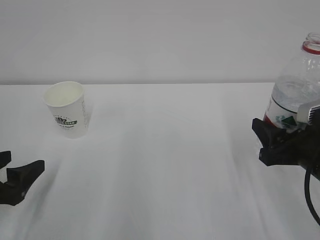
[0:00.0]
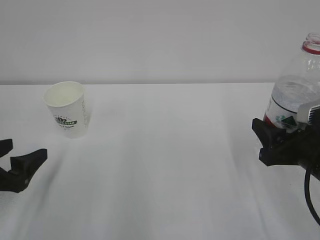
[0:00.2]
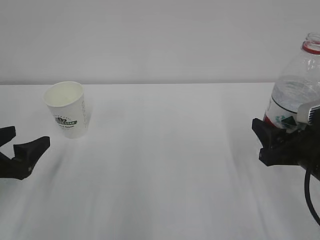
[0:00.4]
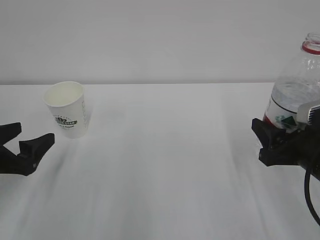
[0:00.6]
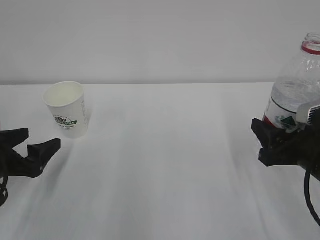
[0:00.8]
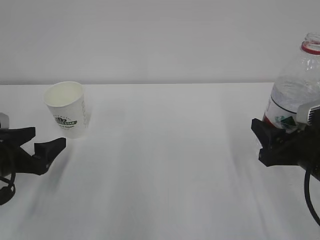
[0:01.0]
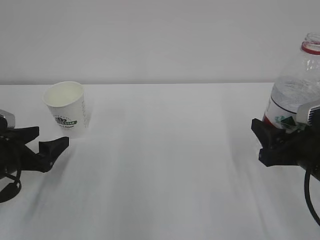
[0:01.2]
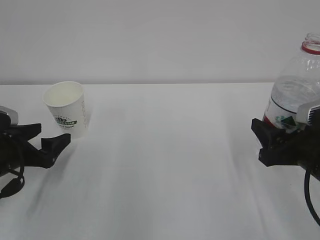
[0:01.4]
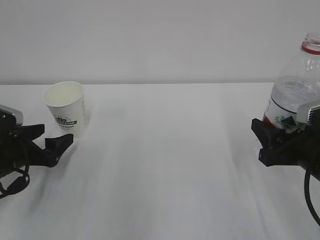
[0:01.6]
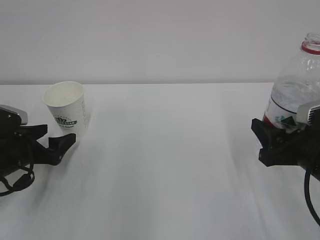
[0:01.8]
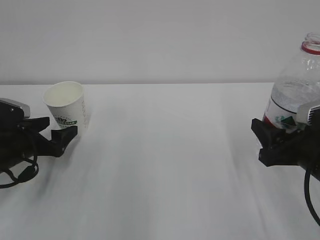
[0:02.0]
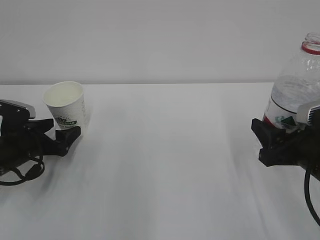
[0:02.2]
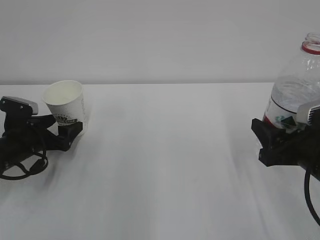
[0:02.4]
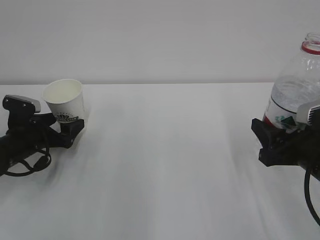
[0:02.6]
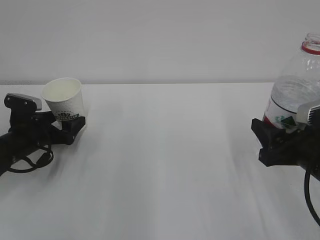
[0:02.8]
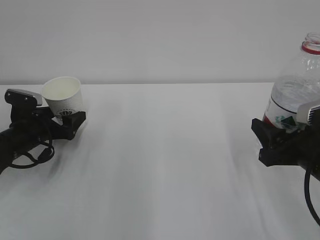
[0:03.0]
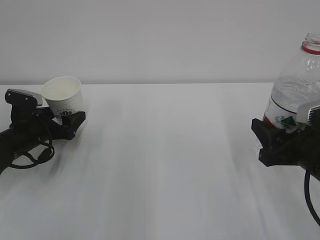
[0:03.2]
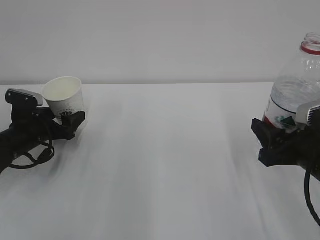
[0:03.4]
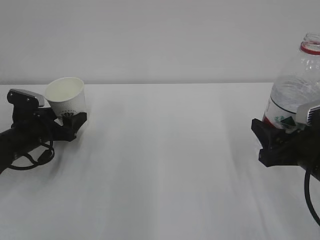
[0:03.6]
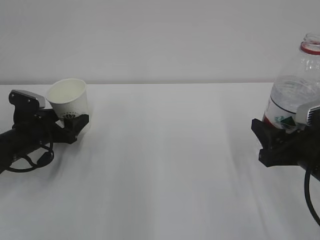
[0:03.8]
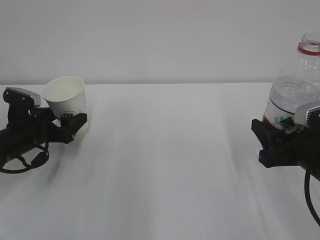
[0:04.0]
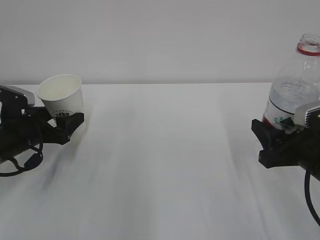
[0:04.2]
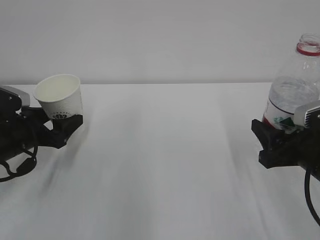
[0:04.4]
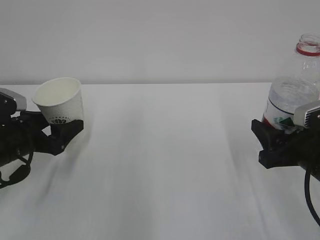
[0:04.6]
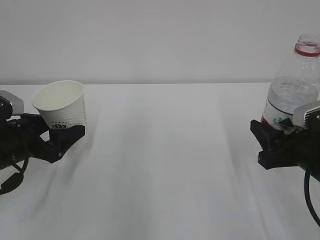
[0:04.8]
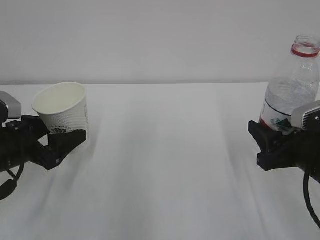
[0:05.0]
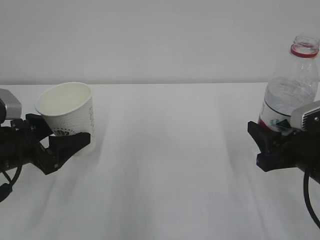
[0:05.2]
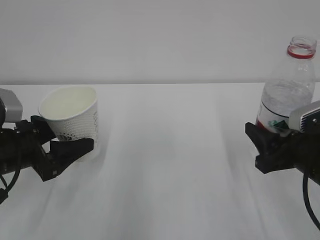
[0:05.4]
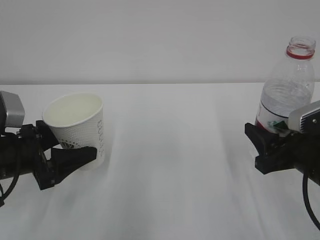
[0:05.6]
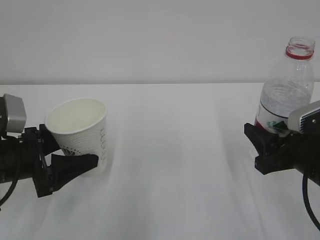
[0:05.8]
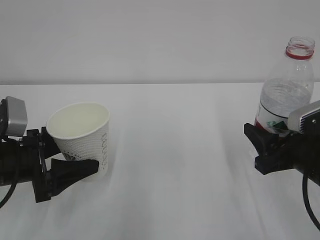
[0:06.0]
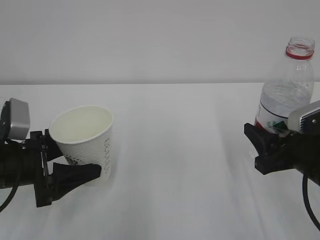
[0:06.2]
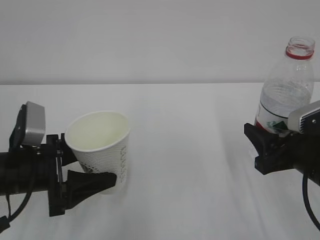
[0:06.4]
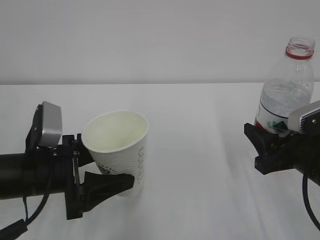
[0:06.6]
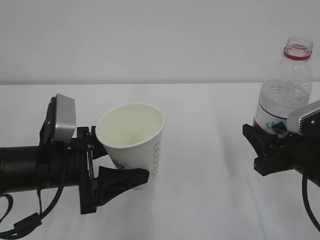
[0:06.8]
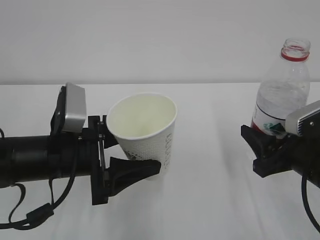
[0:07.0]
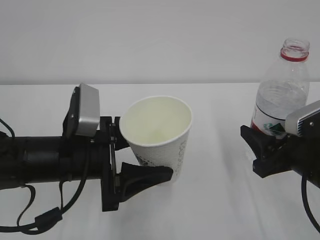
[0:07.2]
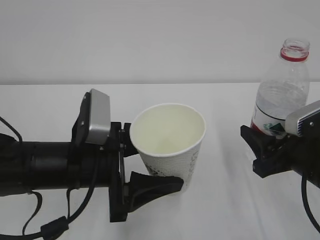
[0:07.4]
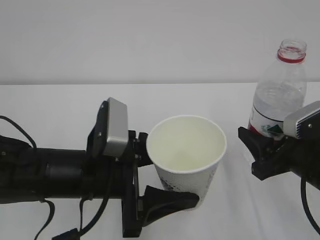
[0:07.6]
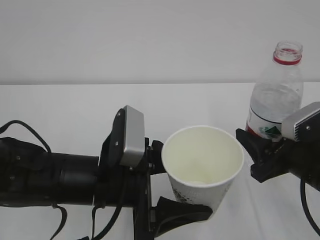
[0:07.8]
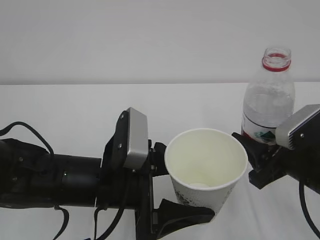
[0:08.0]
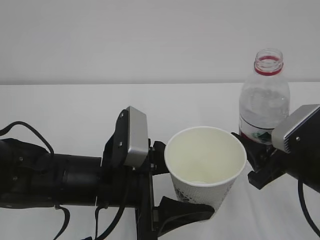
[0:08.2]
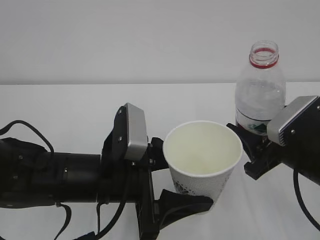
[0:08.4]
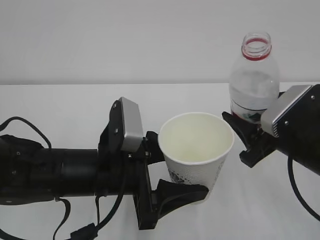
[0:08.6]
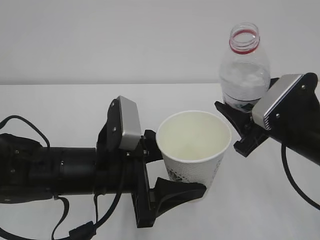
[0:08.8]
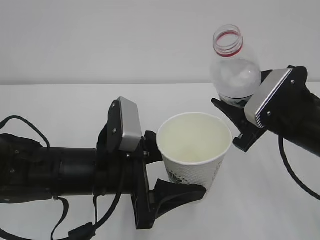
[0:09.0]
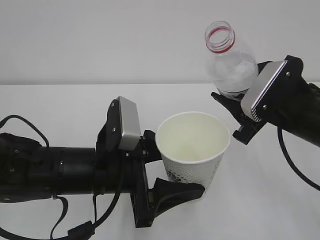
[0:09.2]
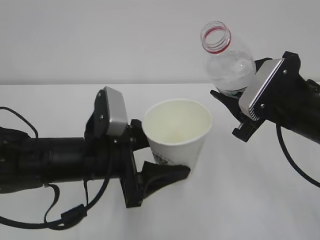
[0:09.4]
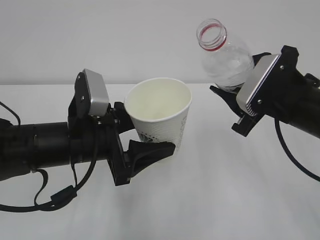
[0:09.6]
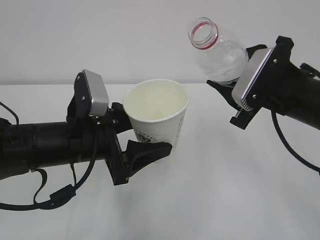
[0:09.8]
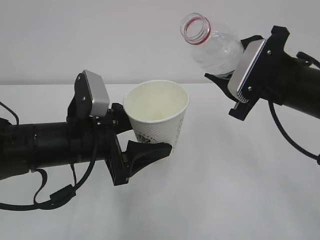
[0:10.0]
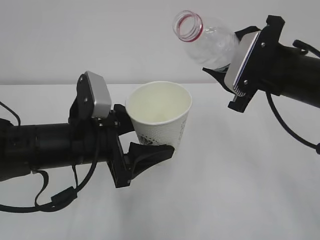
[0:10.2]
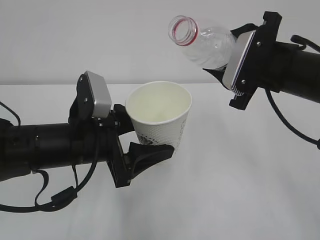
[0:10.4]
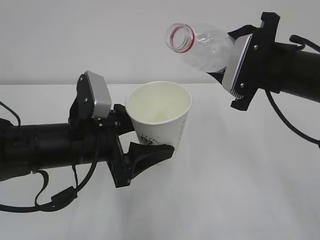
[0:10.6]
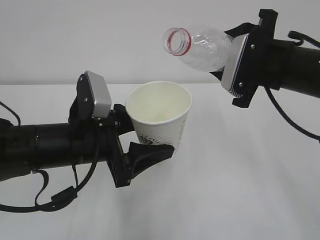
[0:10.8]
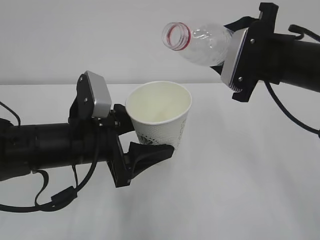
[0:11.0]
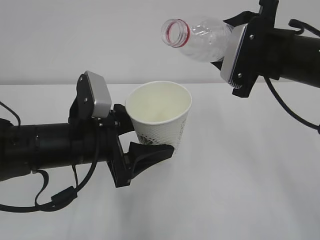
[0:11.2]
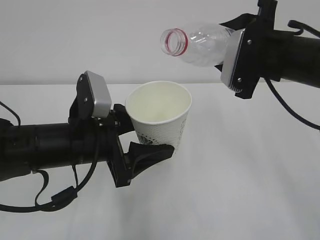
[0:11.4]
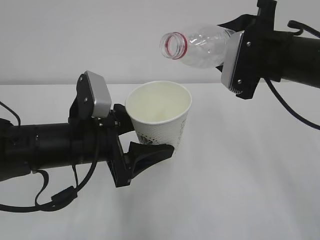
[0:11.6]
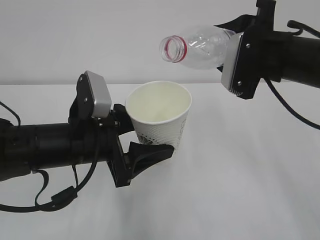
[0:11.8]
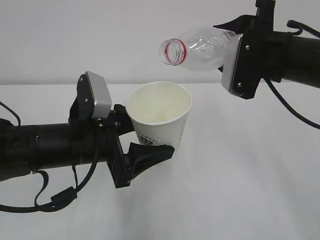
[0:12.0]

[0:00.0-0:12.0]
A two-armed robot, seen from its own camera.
0:00.0 to 0:01.6: The left gripper moves forward, roughly 10 cm.
0:01.6 to 0:03.0: The left gripper shifts approximately 10 cm forward.
0:03.0 to 0:04.4: The left gripper shifts by about 5 cm, and closes its fingers.
0:04.4 to 0:06.0: The left gripper goes some 10 cm backward.
0:06.0 to 0:07.6: The left gripper is displaced to the right by roughly 15 cm.
0:07.6 to 0:09.0: The right gripper shifts by about 5 cm.
0:09.0 to 0:10.4: The right gripper goes approximately 5 cm upward. The left gripper shifts by some 5 cm.
0:10.4 to 0:12.0: The grippers make only small movements.

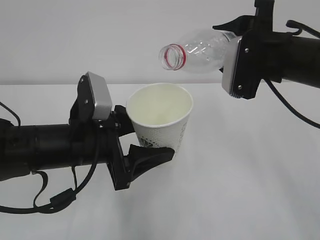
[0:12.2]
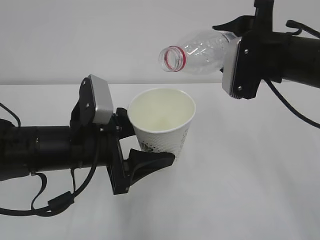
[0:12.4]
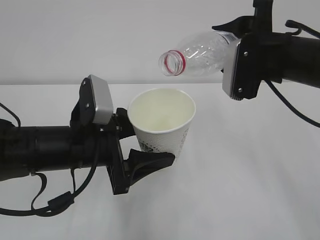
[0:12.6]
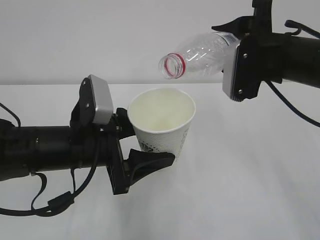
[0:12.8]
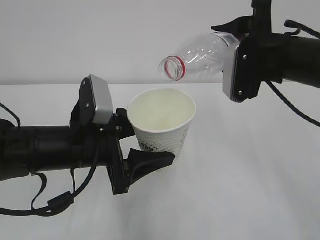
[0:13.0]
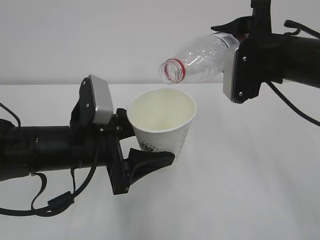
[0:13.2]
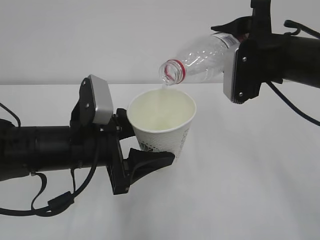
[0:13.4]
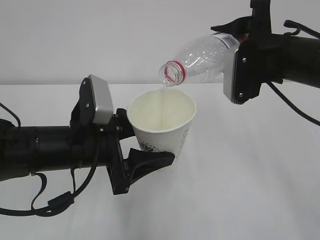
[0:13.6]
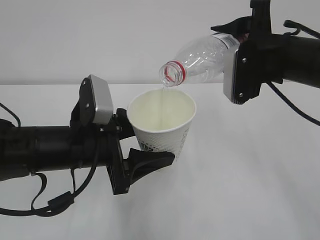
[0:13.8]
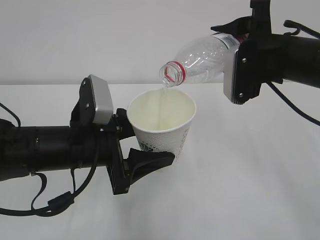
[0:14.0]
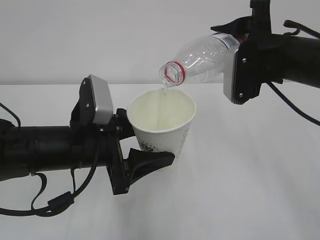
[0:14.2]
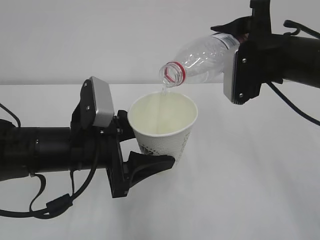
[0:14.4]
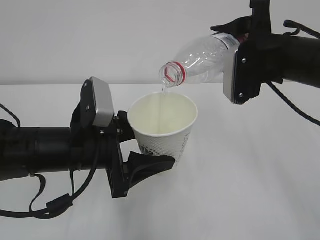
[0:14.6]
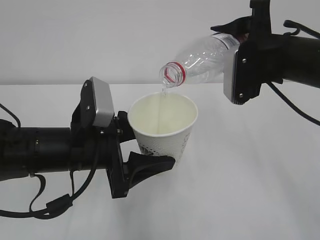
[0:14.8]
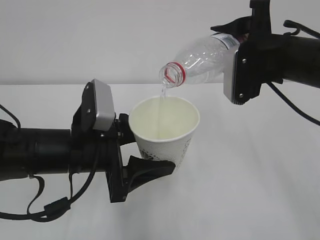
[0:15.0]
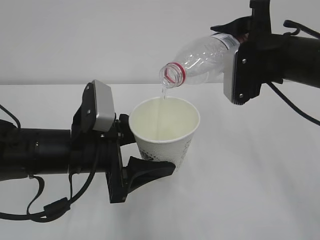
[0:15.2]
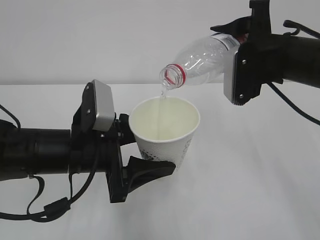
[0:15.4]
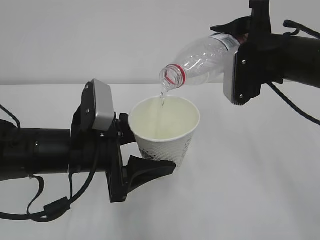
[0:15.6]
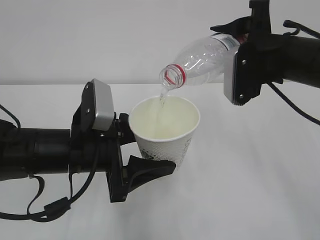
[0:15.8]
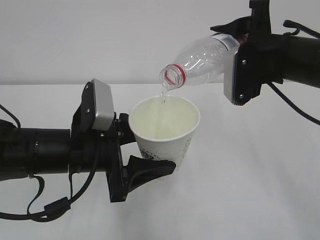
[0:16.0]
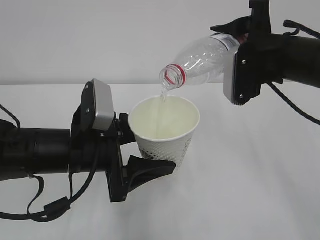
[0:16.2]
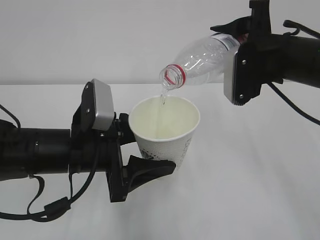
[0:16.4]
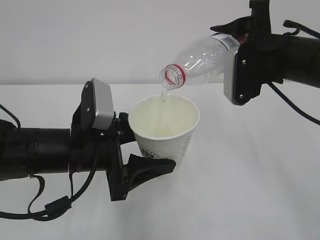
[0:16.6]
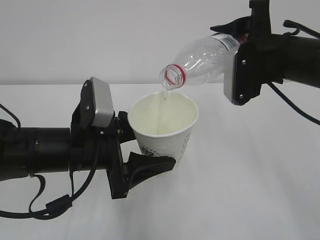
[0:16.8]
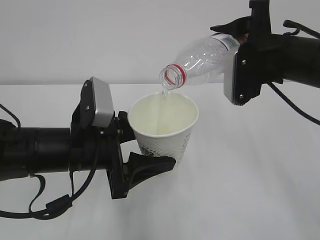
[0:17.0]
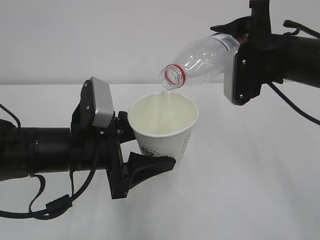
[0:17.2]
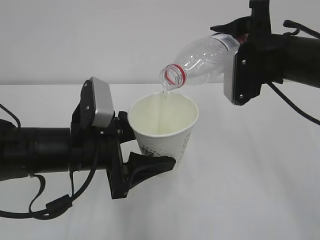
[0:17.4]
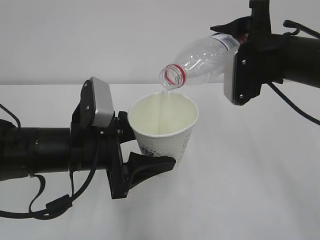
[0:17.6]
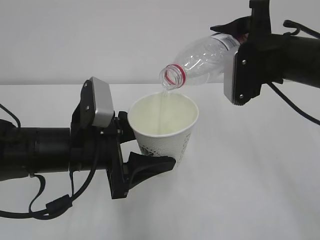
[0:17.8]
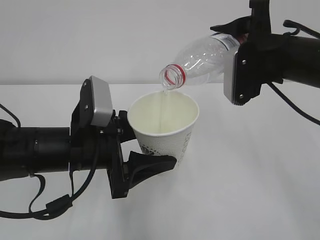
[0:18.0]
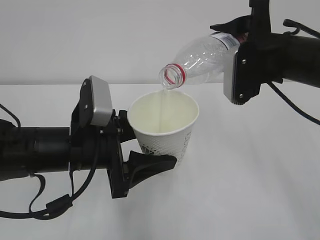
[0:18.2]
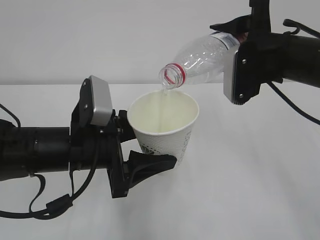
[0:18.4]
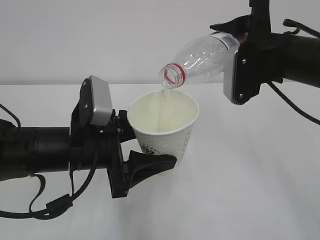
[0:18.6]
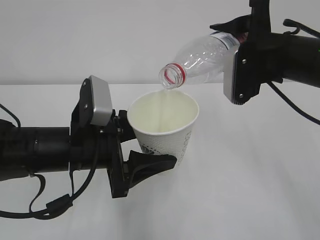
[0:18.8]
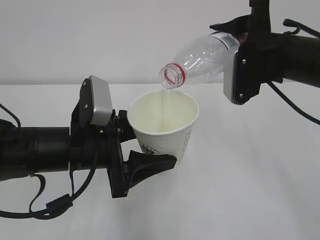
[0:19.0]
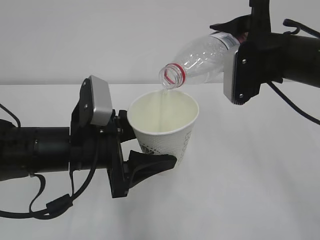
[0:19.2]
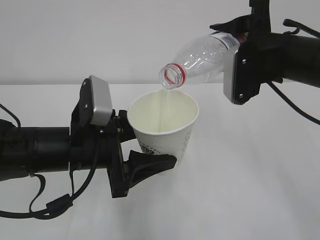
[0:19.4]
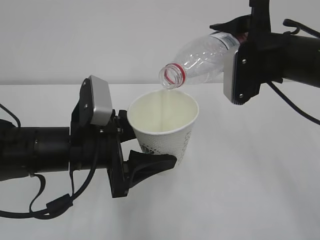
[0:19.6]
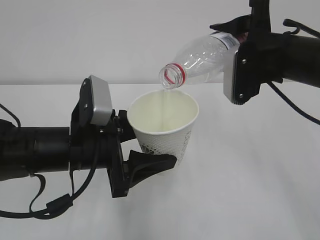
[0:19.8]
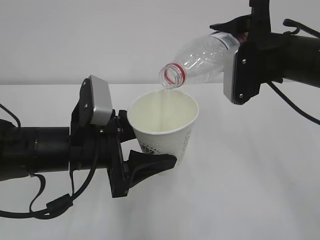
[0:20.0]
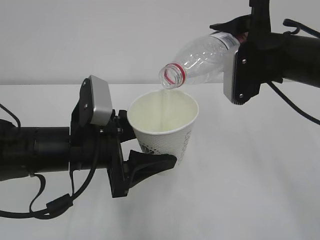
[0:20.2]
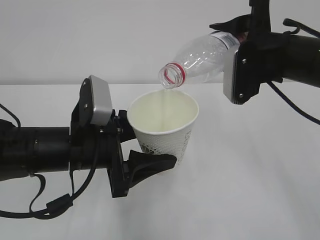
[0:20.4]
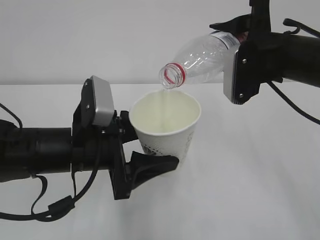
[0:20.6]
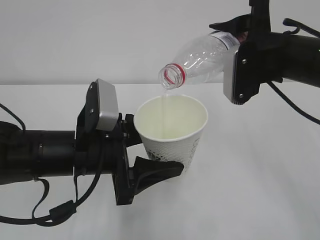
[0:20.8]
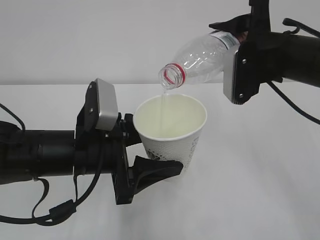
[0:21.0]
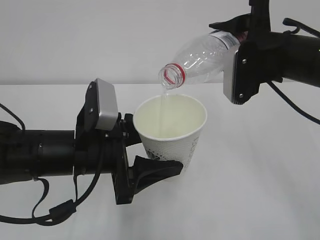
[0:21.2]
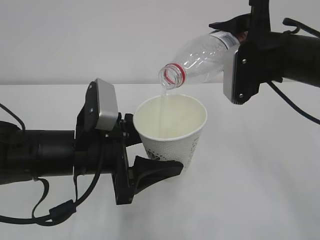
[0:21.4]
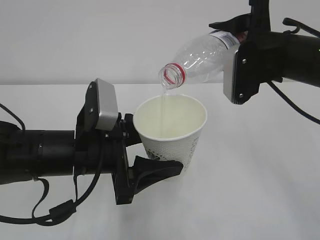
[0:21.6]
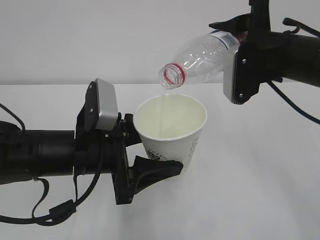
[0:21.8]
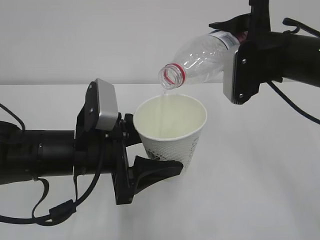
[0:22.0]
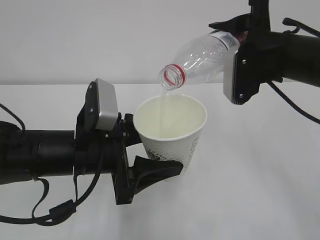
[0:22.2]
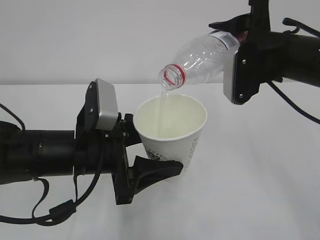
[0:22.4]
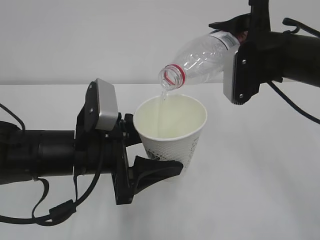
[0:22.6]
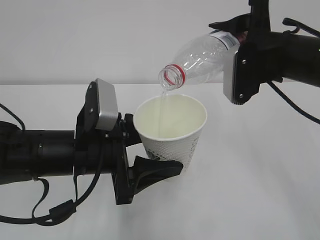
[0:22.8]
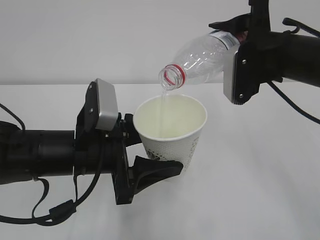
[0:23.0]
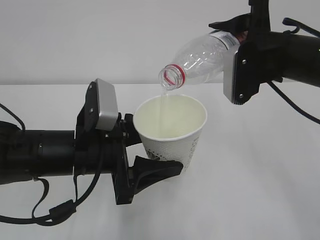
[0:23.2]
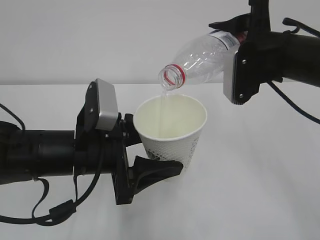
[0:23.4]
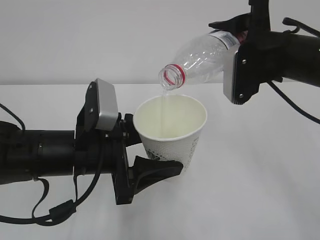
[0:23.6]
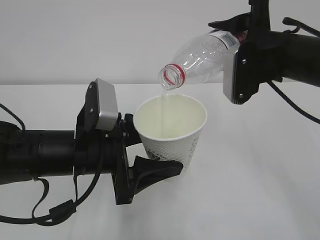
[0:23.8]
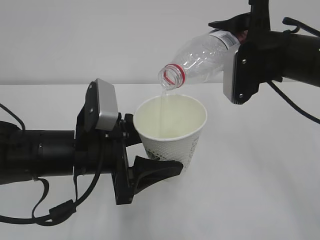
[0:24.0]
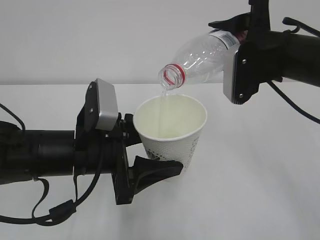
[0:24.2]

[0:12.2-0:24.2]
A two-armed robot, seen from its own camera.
0:12.2 to 0:13.8: The grippers make only small movements.
0:13.8 to 0:24.2: Both grippers stay put.
